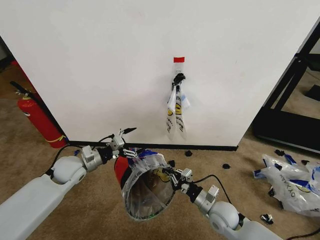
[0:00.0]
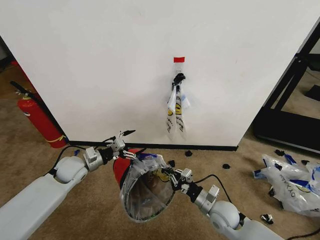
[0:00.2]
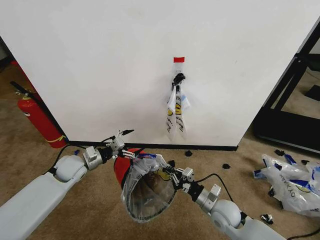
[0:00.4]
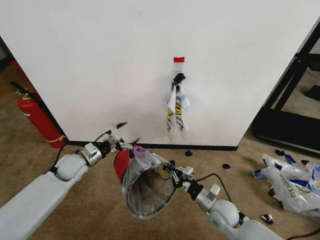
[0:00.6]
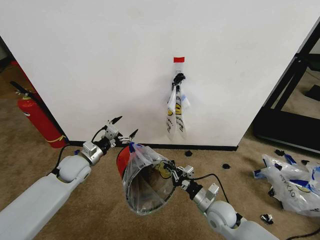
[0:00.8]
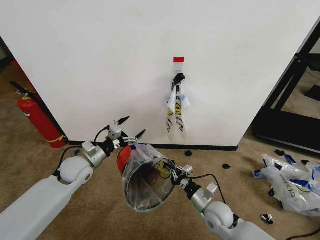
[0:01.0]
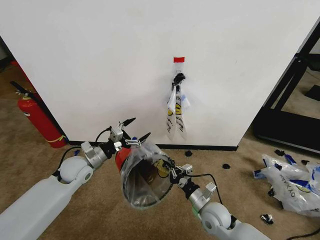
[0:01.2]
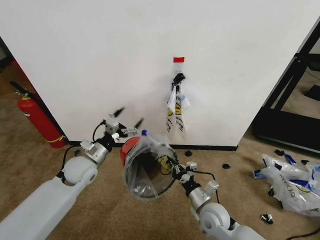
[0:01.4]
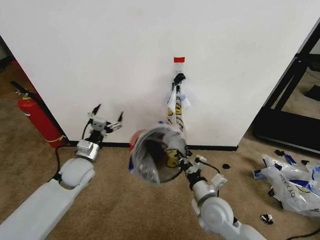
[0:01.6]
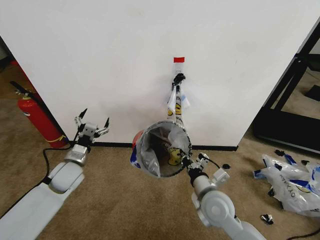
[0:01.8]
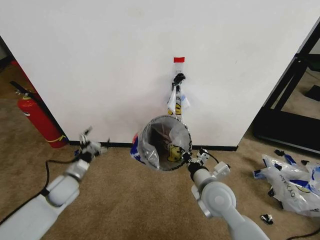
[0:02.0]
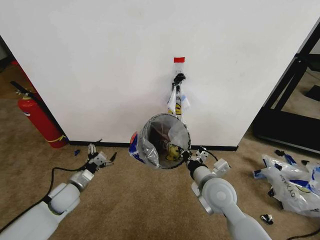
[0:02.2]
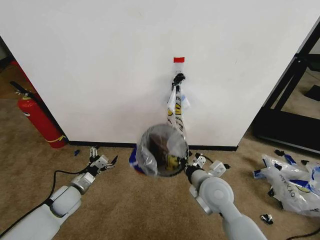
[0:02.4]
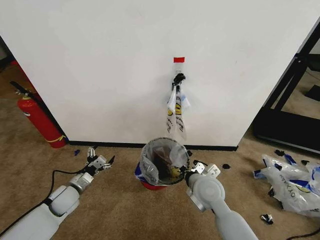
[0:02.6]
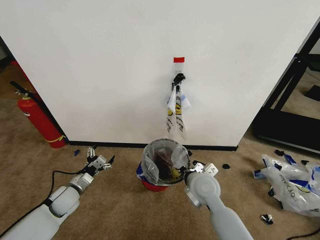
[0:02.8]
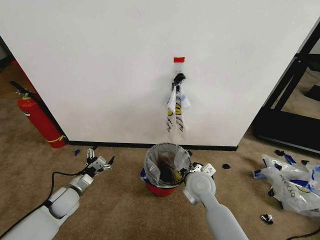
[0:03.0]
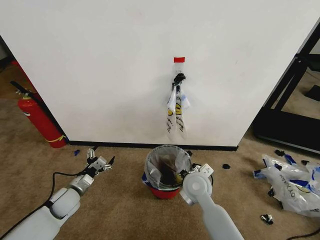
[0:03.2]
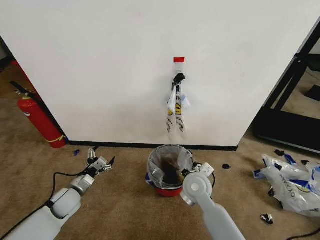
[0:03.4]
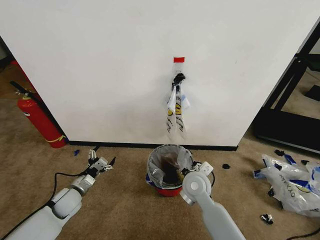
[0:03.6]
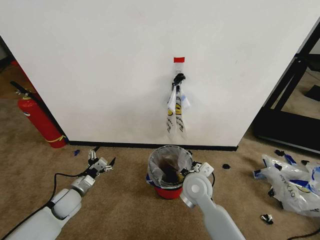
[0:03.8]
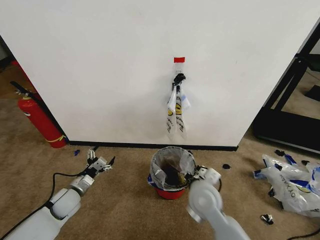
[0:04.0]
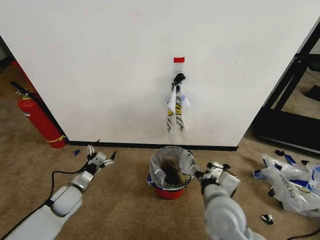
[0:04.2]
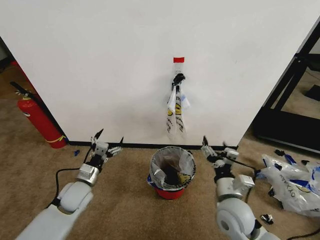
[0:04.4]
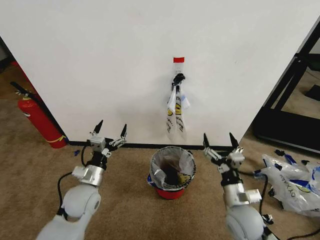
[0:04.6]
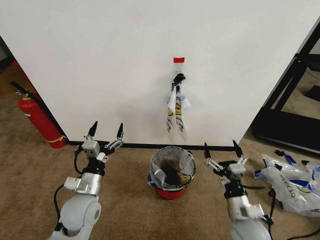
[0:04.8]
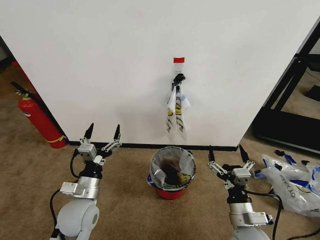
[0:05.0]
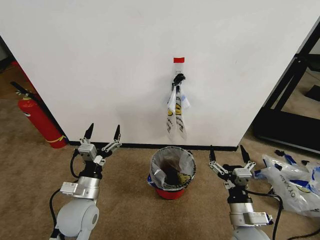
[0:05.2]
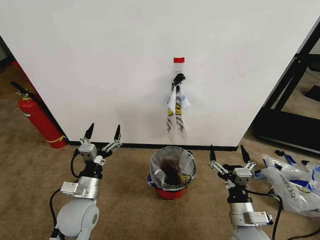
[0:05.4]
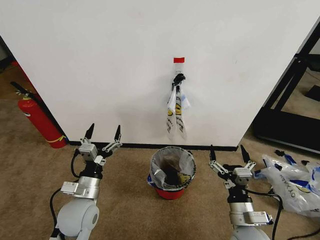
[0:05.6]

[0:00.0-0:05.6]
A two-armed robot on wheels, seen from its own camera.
Task of the whole recording: Pick up the garbage bag from the wall and place it over the trash bin.
0:00.0 to 0:01.4: The left gripper moves roughly 5 cm.
0:01.4 to 0:02.8: The right gripper is displaced upward and forward by about 10 cm. The left gripper heads downward, to the left and backward, covering some 15 cm.
0:02.8 to 0:04.2: The right gripper heads backward, covering approximately 10 cm, and opens up.
0:04.2 to 0:05.6: The left gripper goes approximately 15 cm to the right, upward and backward. The right gripper travels to the right, downward and backward by about 10 cm.
